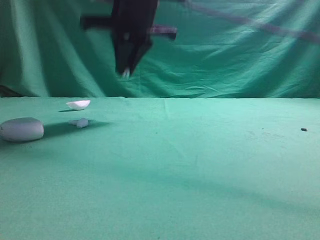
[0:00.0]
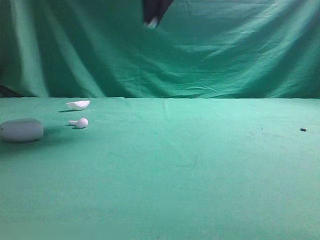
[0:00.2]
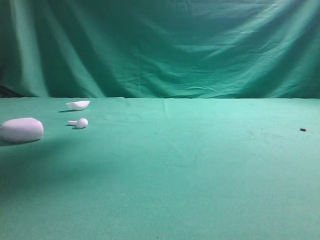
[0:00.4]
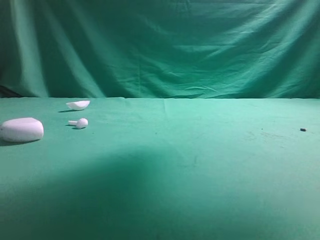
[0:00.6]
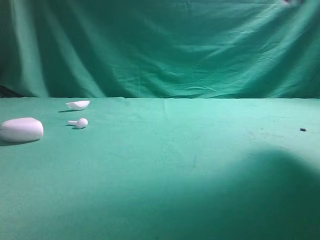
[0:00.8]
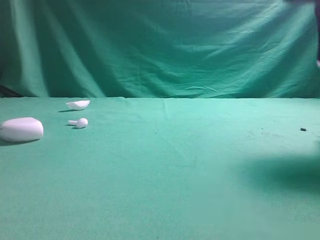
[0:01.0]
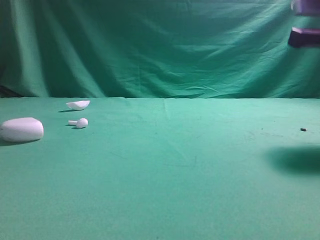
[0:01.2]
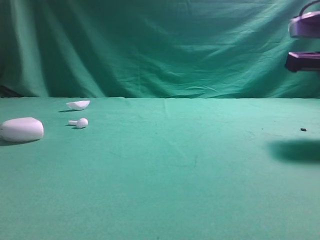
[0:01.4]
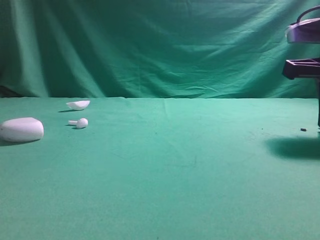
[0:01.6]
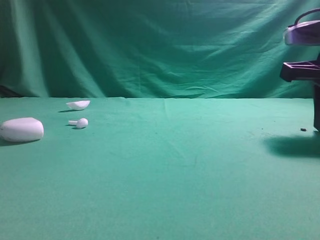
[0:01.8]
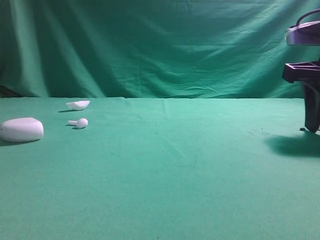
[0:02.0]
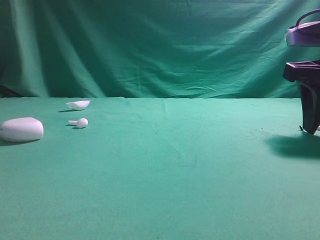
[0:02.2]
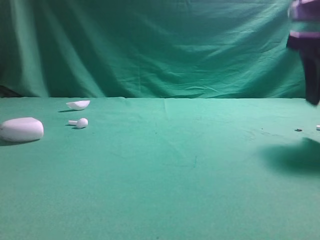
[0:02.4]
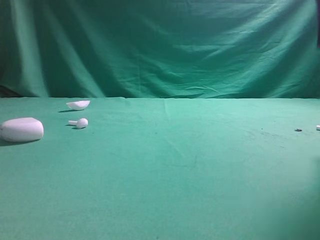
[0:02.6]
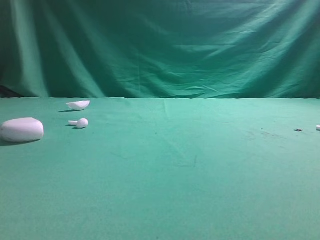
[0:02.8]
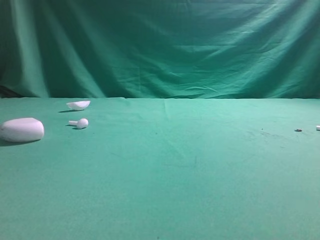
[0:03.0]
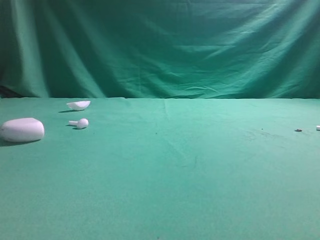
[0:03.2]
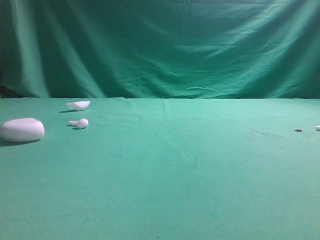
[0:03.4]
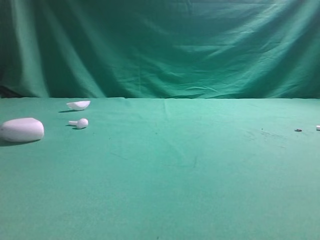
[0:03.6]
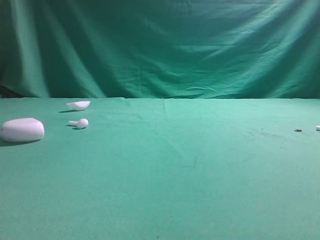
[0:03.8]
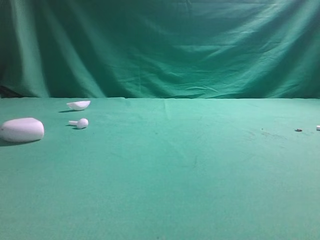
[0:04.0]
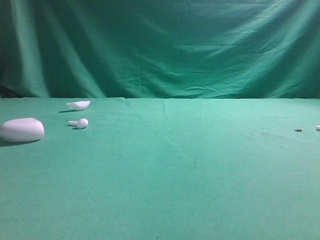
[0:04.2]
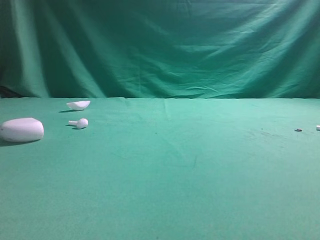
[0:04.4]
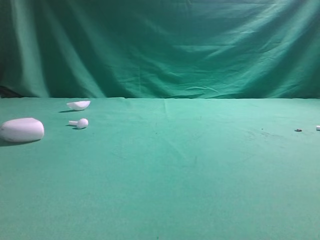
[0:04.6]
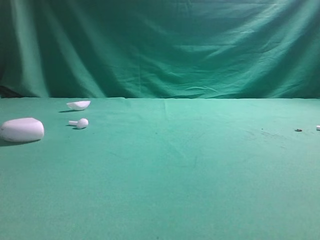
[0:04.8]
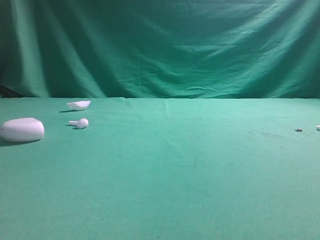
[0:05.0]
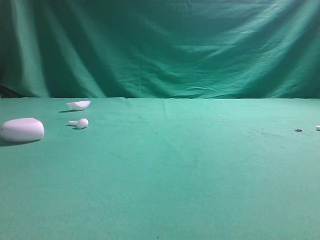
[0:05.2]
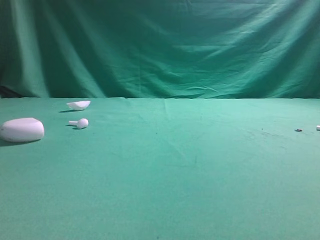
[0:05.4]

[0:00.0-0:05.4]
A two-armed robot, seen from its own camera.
Step, 0:00.0 to 0:02.2: Place bluetooth earbud on the right side of the table.

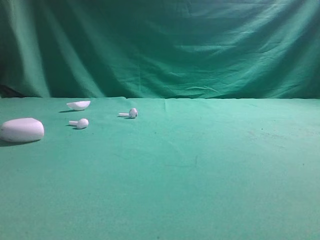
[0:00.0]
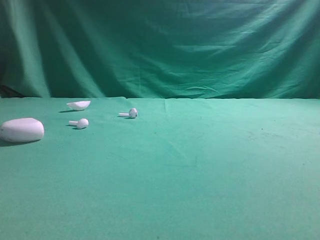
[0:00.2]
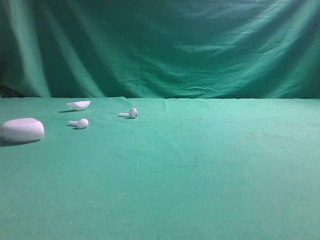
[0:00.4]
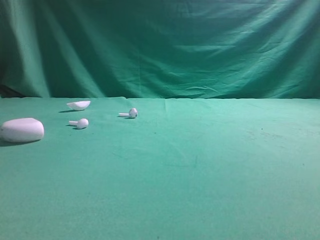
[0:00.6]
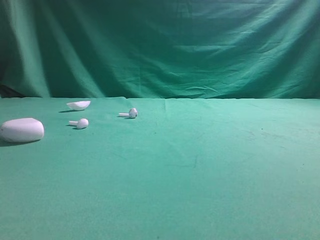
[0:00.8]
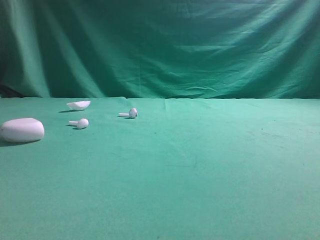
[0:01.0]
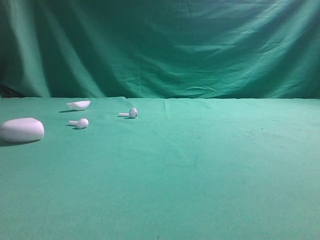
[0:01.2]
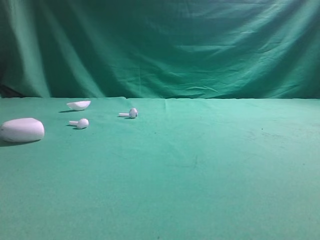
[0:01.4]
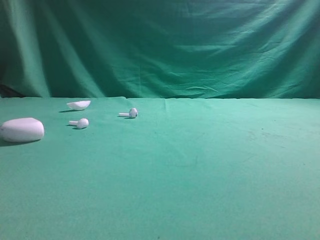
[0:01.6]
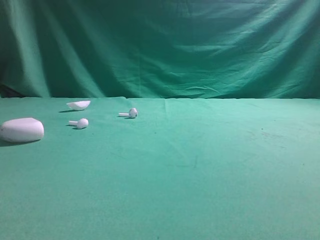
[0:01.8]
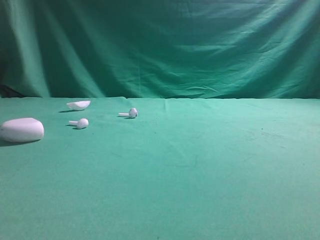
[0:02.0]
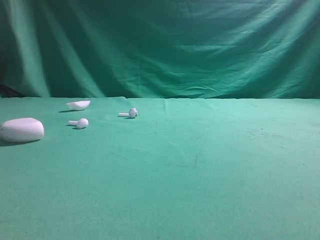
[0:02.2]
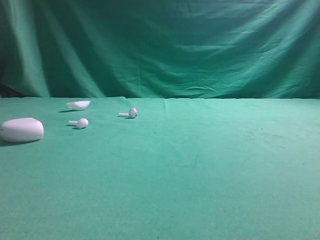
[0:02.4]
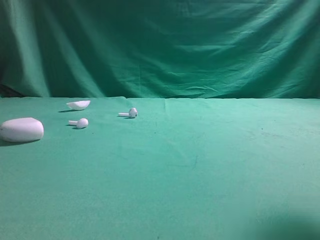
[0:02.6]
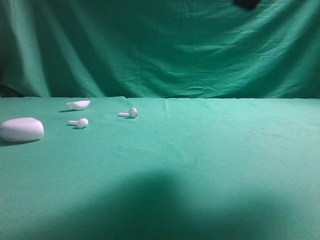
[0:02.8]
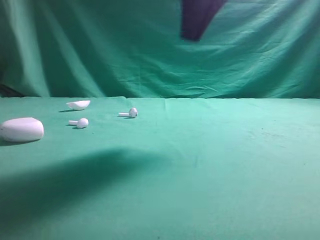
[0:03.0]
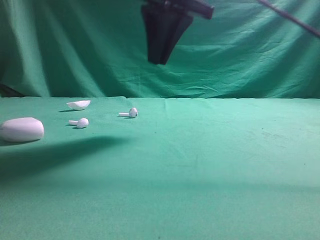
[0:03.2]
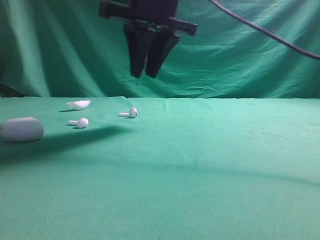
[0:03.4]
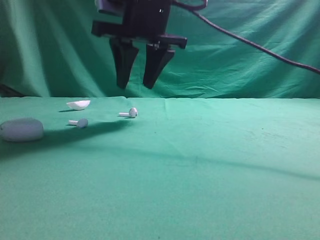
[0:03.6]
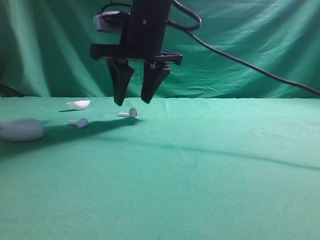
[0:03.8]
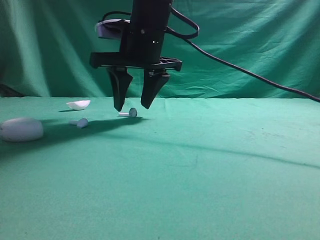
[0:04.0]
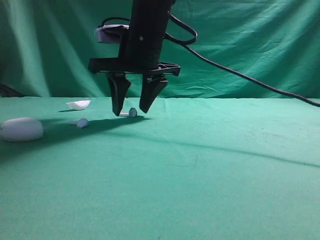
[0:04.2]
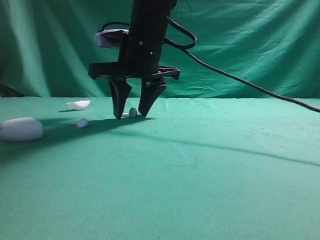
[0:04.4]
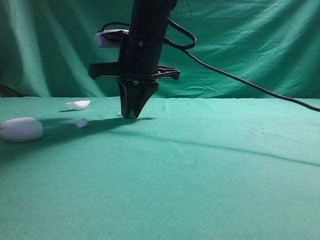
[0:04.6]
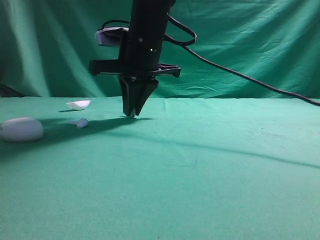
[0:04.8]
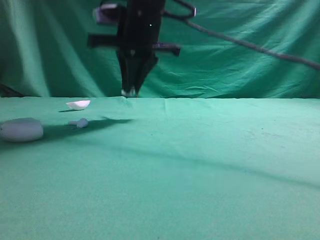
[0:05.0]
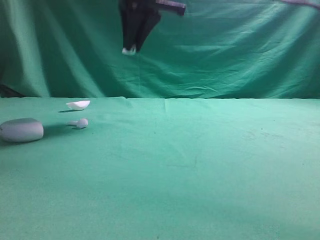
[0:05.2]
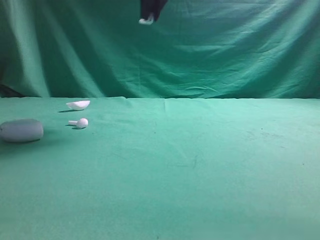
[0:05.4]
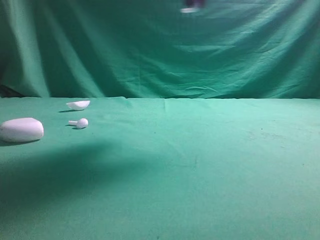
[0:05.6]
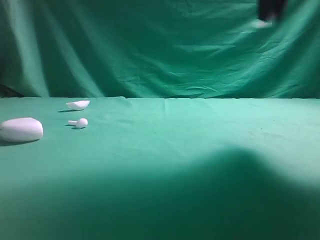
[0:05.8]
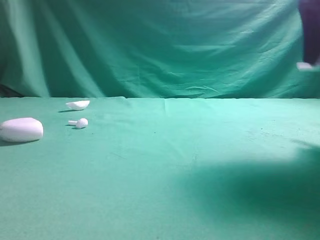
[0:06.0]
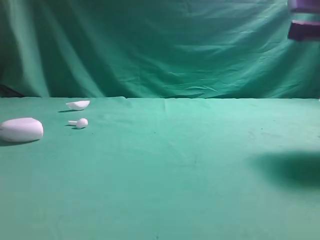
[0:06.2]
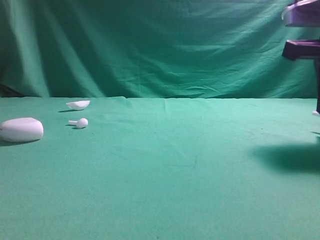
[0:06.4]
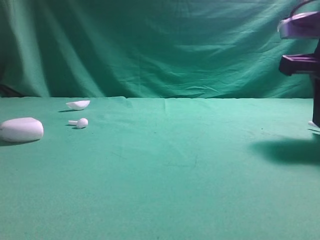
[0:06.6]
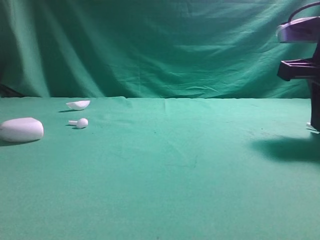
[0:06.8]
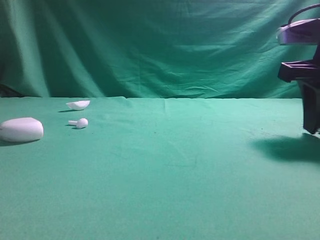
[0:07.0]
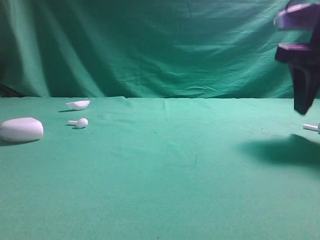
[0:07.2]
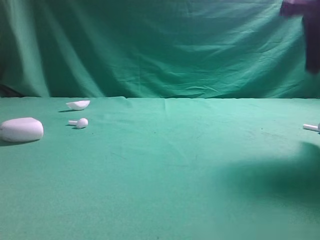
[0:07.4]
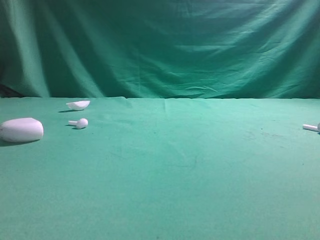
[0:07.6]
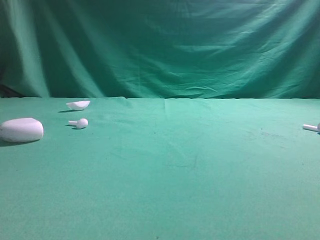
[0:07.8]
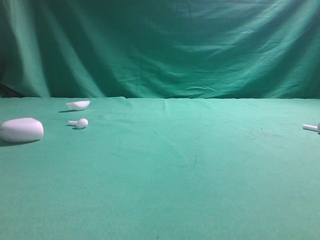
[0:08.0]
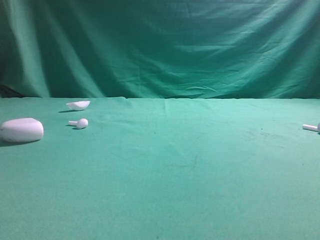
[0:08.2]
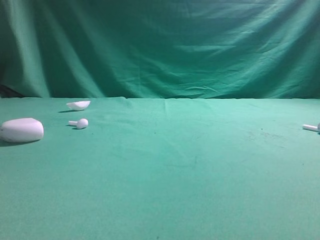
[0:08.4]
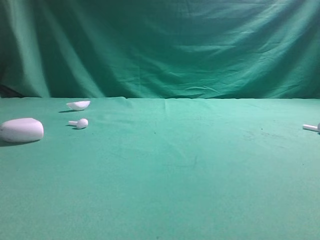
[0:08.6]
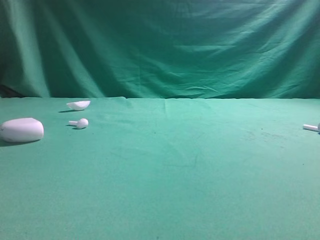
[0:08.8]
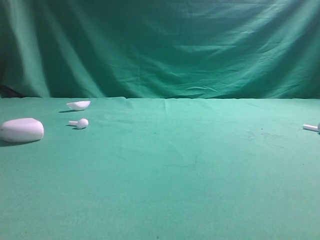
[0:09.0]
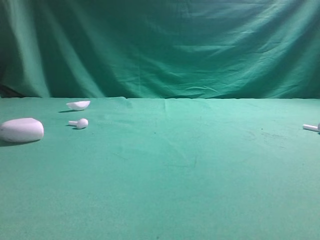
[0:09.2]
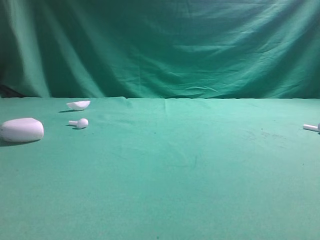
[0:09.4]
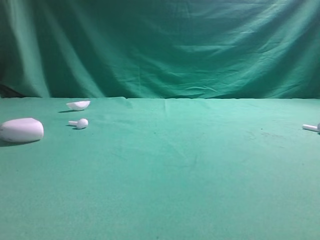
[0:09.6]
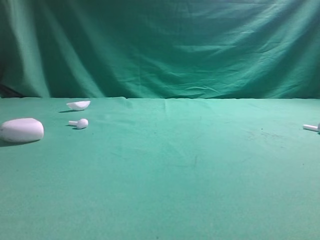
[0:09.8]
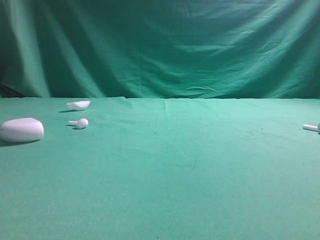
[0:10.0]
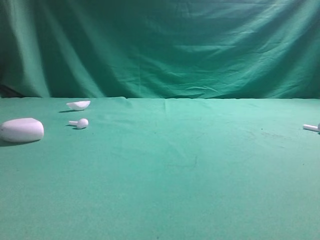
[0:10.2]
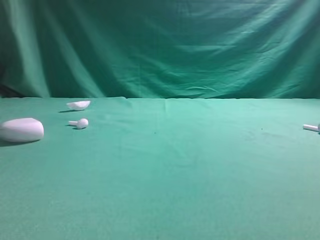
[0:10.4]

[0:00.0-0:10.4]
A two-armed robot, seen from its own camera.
Step, 0:00.0 to 0:05.0: Grasp the Bluetooth earbud.
Step, 0:05.2 to 0:07.2: Place bluetooth earbud on the right side of the table.
